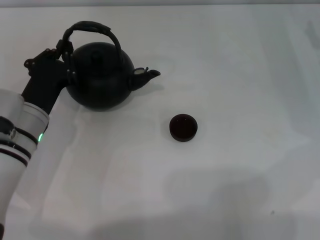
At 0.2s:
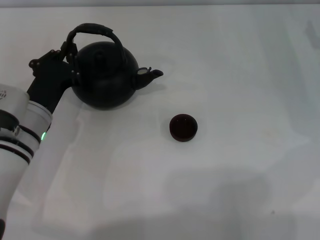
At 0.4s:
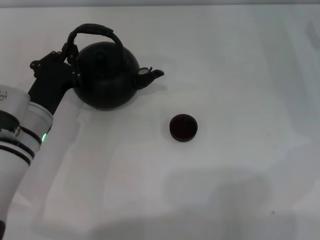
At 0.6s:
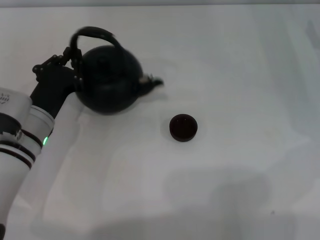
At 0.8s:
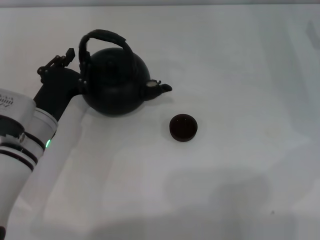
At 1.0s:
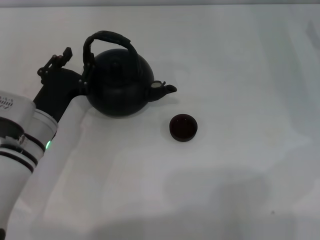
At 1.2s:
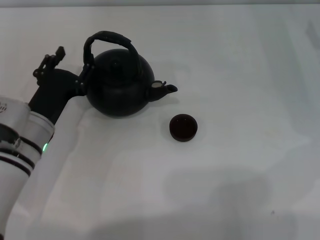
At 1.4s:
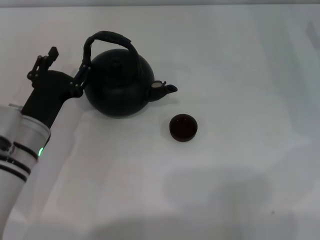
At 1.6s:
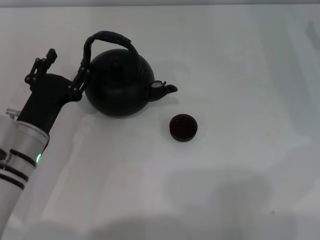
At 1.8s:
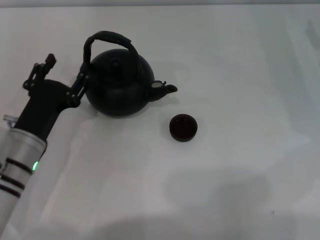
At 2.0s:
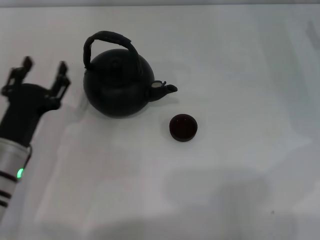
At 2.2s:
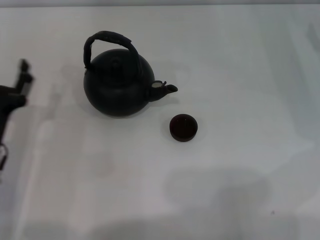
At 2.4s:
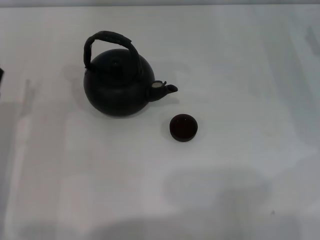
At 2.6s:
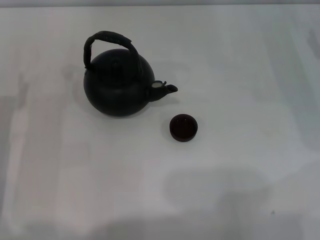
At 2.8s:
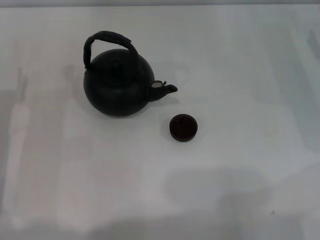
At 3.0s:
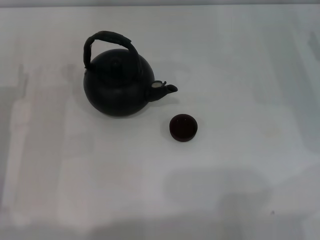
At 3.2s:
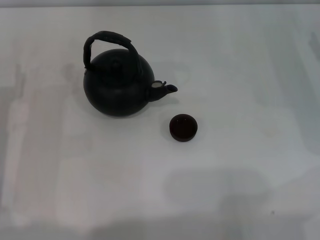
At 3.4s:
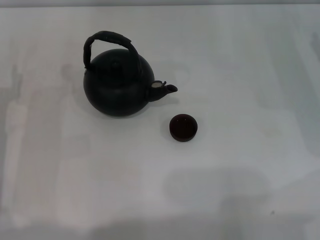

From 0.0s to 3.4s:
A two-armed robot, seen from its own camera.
Task of the whole recording: Grasp the handle of the teapot with one hand and pour tea into the teacup.
Step, from 0.0s to 1.8s: Put down the teapot with the left gripper.
From 0.0s to 1.6s: The left gripper opens.
From 1.6s to 3.4s: The left gripper shifts approximately 10 cm to the left.

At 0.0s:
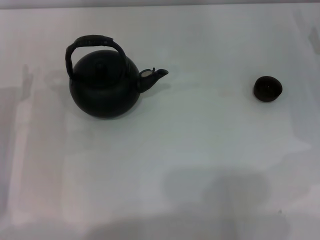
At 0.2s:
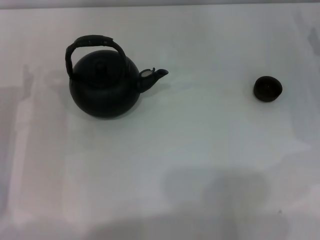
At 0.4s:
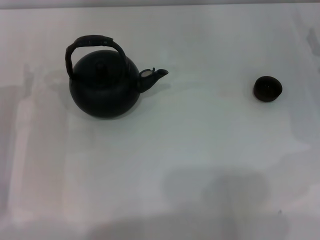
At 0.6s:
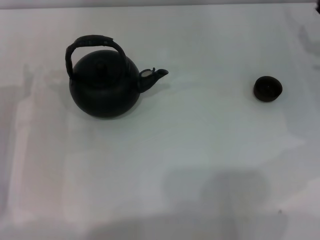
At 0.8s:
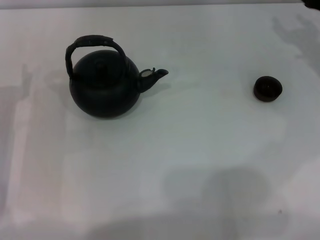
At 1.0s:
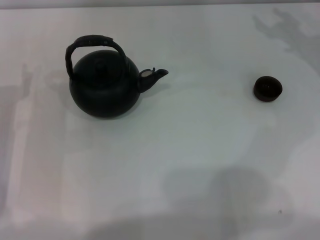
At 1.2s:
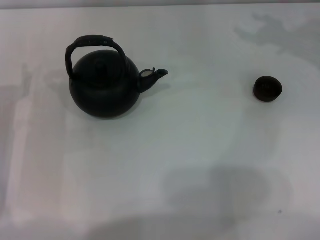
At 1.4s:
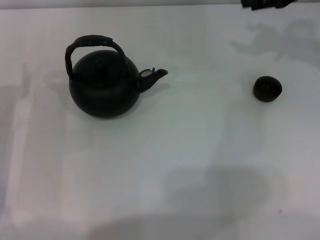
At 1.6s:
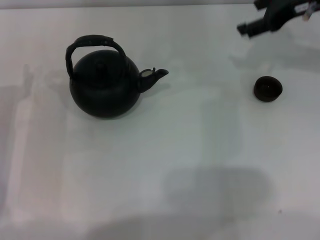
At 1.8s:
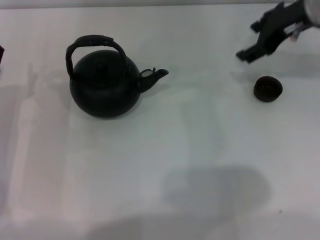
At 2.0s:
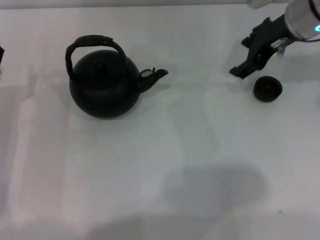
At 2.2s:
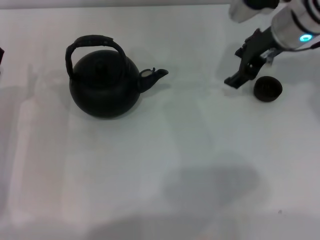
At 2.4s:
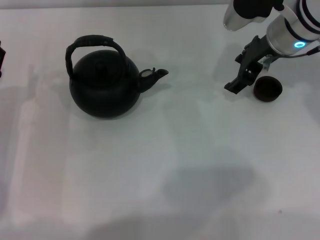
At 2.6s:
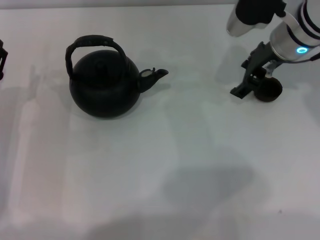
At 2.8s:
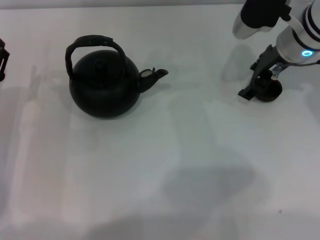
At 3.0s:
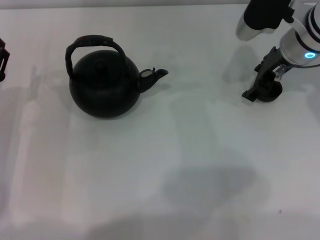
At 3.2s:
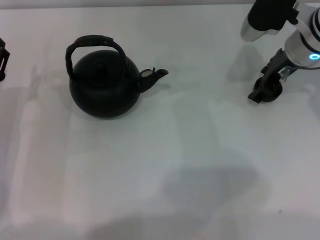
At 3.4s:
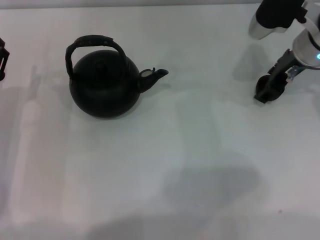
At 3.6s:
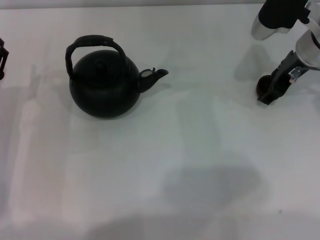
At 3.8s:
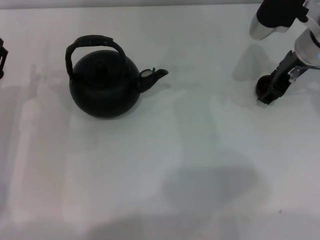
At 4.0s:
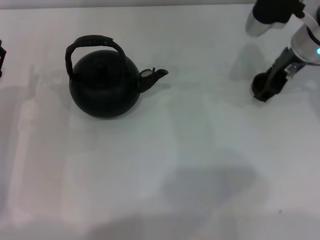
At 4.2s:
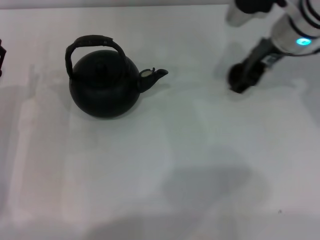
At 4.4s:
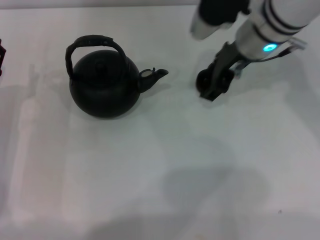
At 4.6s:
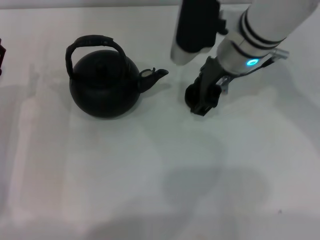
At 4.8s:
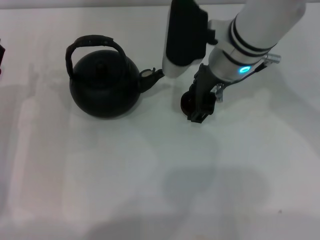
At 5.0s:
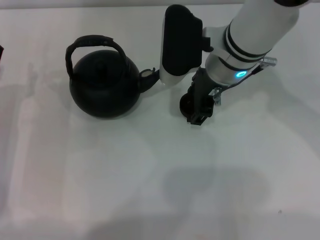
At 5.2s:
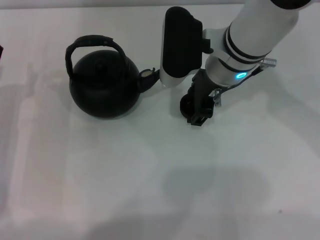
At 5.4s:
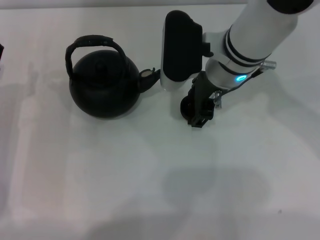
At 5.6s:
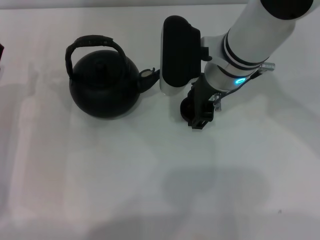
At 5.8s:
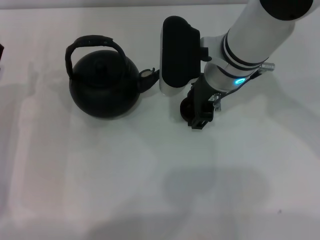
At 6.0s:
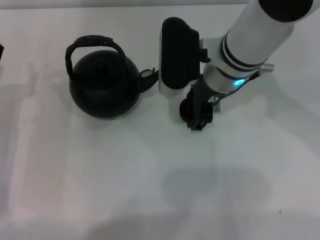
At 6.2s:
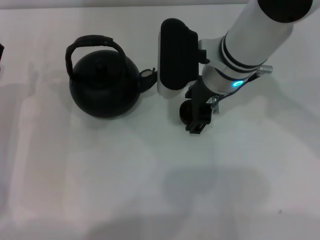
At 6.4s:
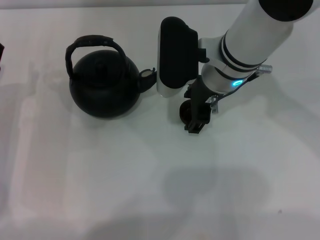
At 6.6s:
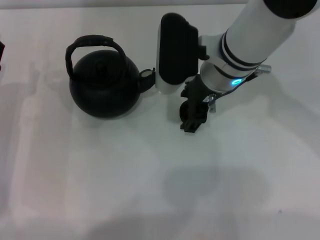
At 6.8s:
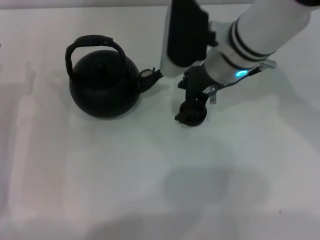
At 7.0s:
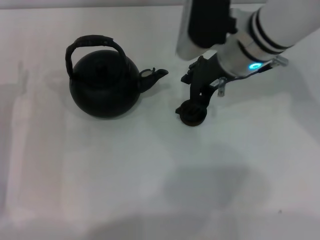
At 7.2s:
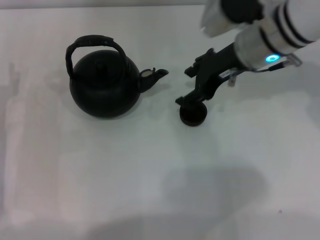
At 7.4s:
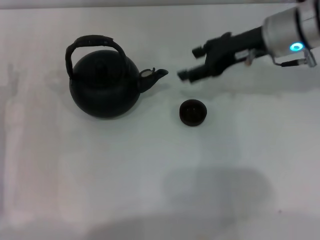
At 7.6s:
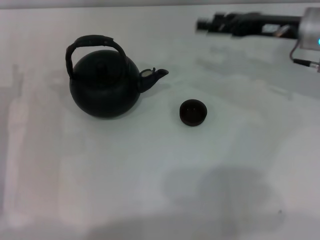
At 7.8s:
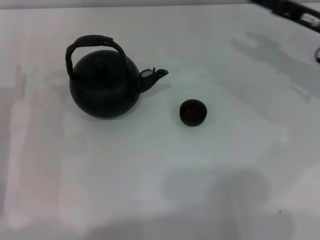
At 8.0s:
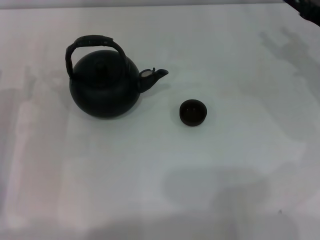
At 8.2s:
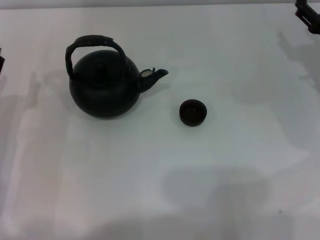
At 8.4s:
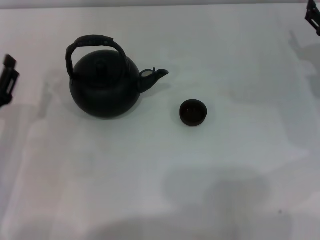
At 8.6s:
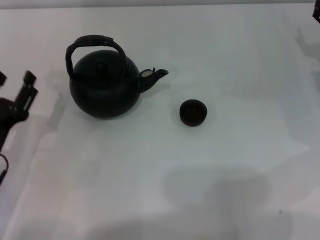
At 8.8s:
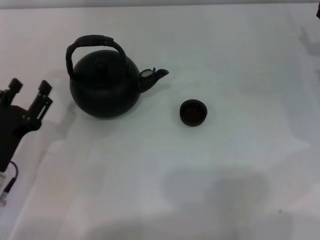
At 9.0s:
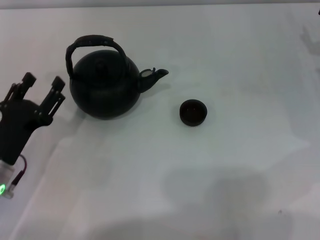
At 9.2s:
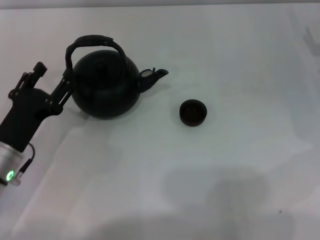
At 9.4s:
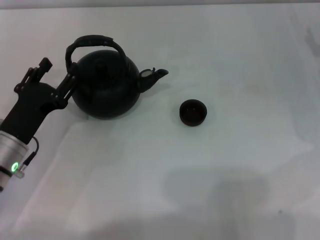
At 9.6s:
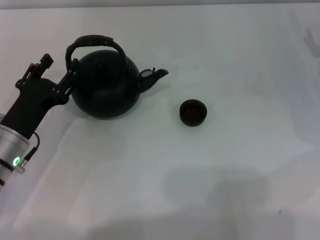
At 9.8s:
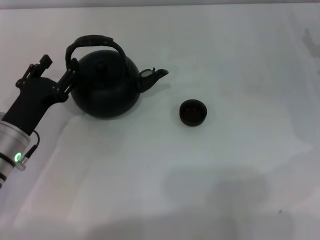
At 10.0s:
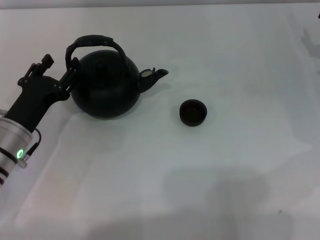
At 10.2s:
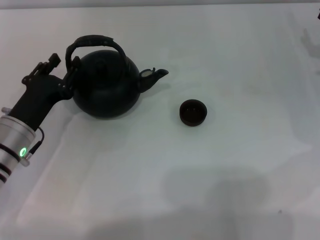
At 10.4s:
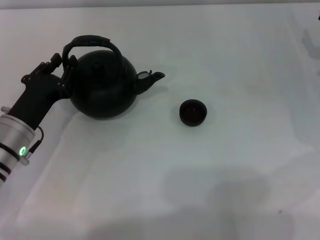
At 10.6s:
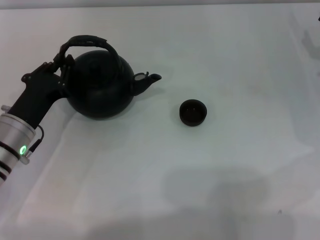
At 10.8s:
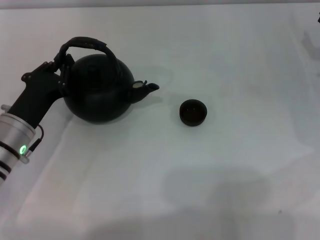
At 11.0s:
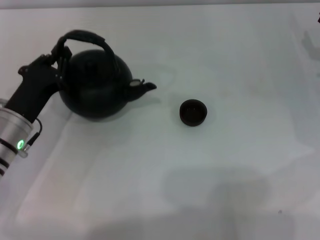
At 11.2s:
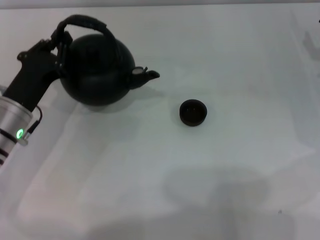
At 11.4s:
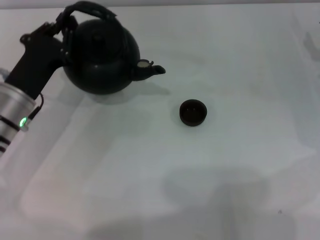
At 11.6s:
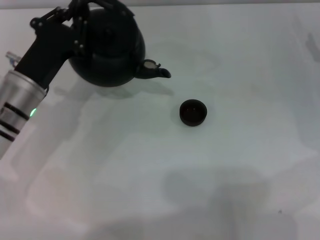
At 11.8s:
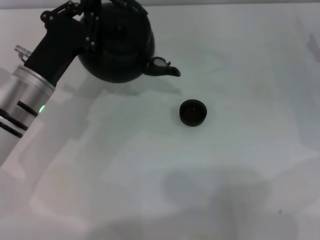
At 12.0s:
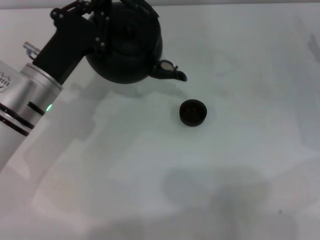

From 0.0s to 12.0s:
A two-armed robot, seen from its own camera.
Task of the whole recording: Grasp the handle of the teapot with one hand and pour tea into the teacup.
Step, from 0.0s to 4.2s: Pick up the teacup with the right gripper.
Step, from 4.6s to 6.8s: Place the teacup in the center of view with the right gripper.
Step, from 7.2s to 11.4s: Pick up the teapot with the left gripper.
From 0.0s to 1.6s: The right gripper goes some 15 cm upward and to the left.
From 1.6s to 3.0s: The right gripper is displaced downward by about 5 cm.
From 3.0s to 4.4s: The right gripper goes approximately 5 cm to the left.
From 4.4s to 6.0s: The right gripper changes place by approximately 5 cm.
From 6.0s to 7.6s: The right gripper is displaced to the right by roughly 15 cm.
From 7.6s to 9.0s: The right gripper travels to the right and downward by some 10 cm; the left gripper heads backward, covering roughly 5 cm.
From 9.0s to 10.4s: The left gripper moves forward, approximately 5 cm.
From 10.4s to 12.0s: The left gripper is displaced upward by some 5 cm, and closes up.

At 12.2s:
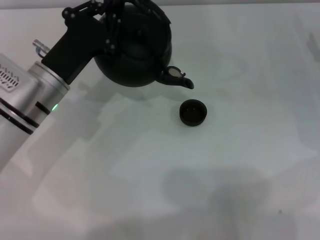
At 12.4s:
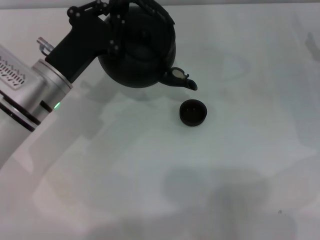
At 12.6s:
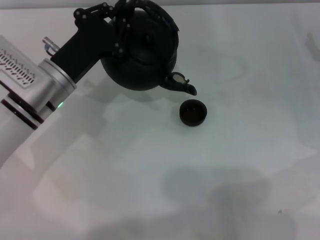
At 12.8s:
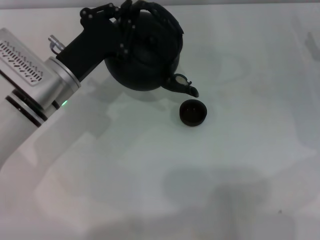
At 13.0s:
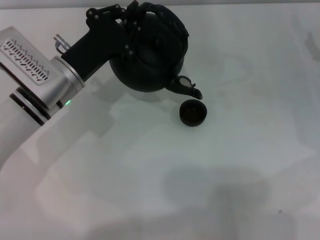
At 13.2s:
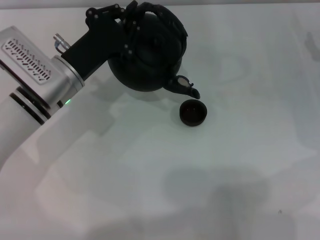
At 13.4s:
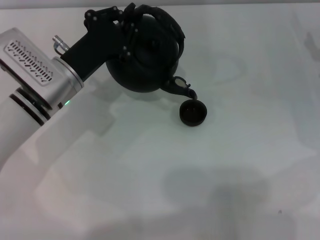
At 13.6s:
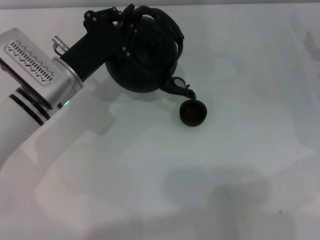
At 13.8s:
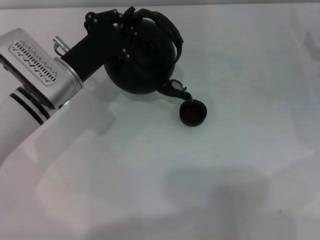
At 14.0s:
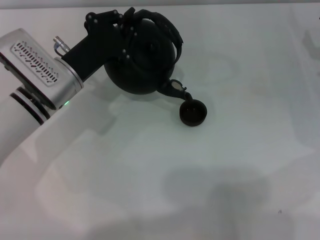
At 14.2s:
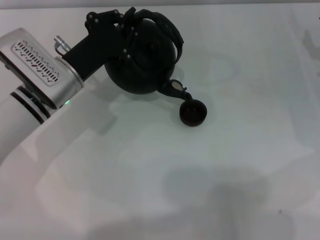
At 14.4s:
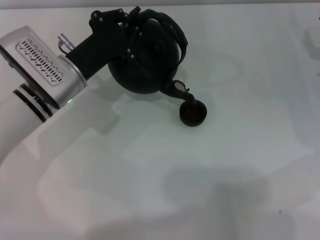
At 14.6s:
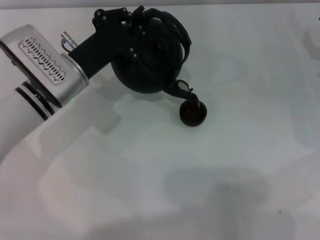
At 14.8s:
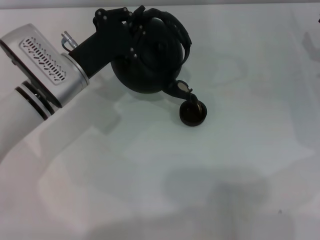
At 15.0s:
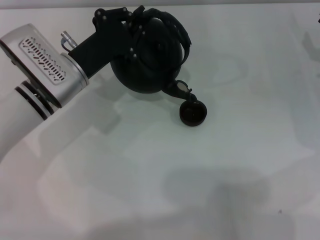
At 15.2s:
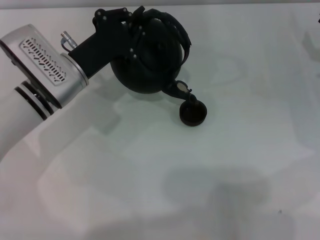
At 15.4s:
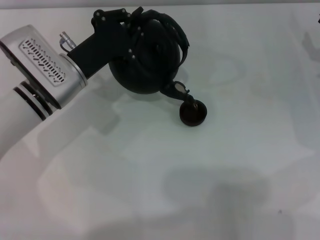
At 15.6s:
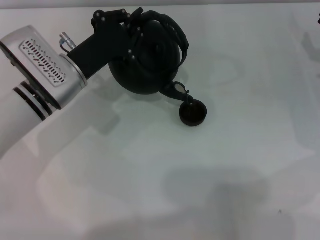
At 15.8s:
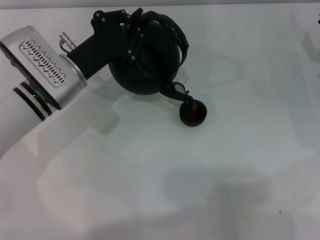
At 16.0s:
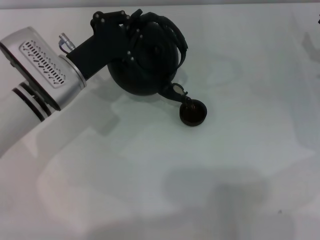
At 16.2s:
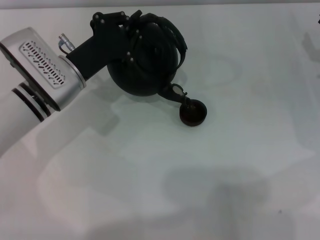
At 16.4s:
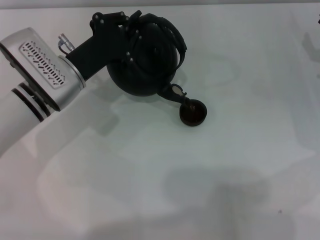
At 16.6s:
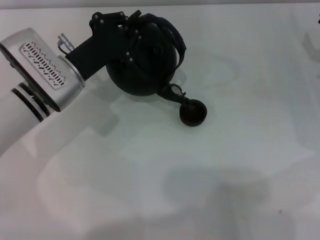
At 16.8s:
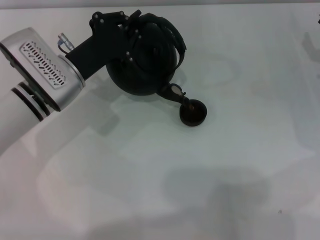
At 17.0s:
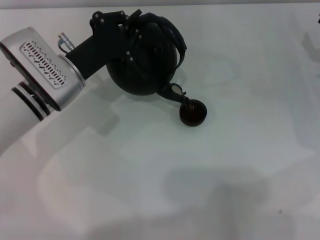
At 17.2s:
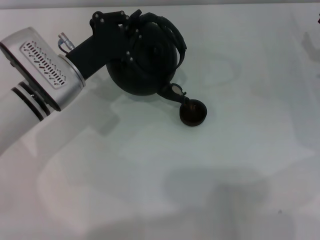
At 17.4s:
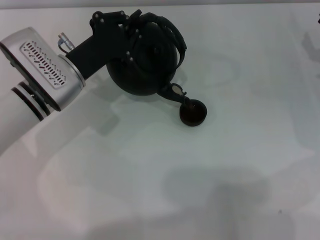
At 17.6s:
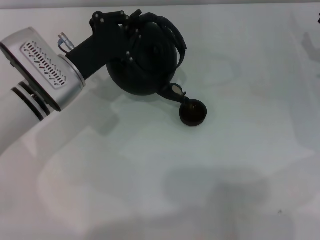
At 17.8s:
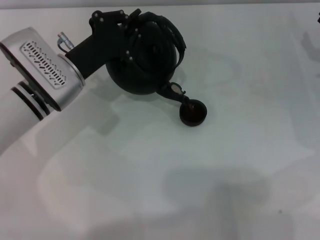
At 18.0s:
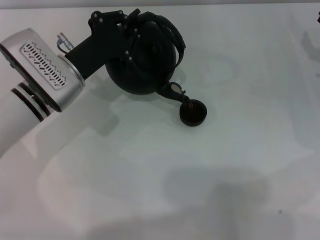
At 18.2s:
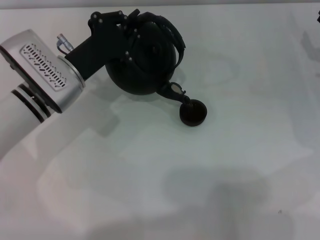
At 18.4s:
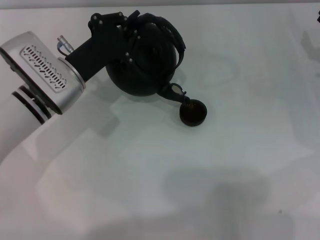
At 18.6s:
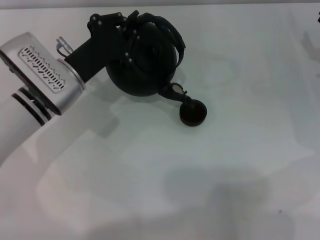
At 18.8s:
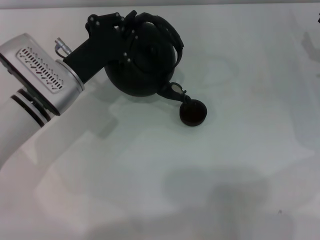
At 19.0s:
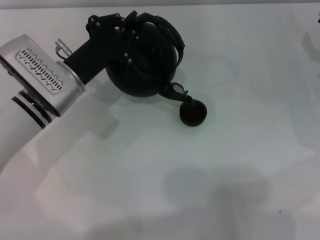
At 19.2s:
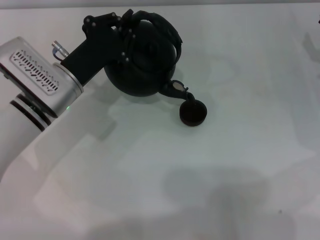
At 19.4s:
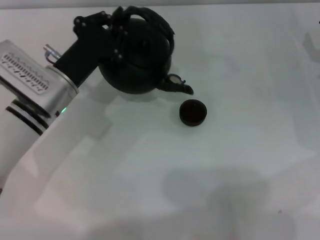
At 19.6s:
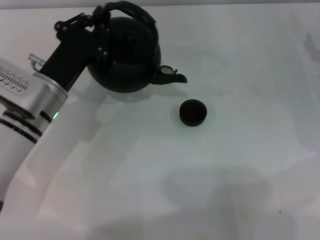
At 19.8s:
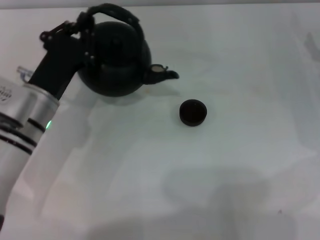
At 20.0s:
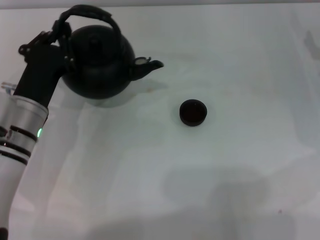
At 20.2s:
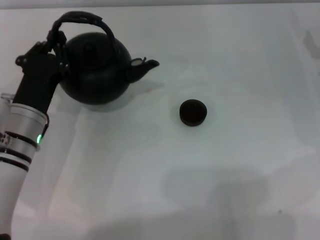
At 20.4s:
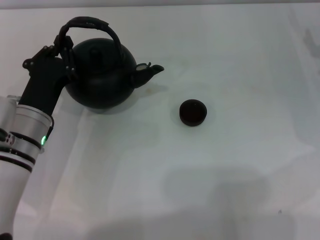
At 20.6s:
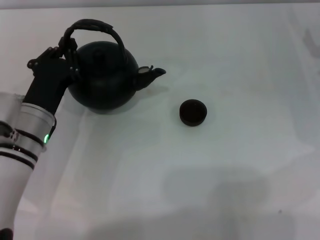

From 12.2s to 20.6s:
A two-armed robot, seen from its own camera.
Task of the whole recording: Grasp the handle of the teapot with one hand and pour tea into the teacup.
Step, from 12.2s to 19.8s: Pour tea into the teacup with the left gripper.
From 12.2s to 15.0s: There are only small adjustments of the grippers.
From 15.0s to 17.8s: Neither gripper changes place.
From 17.8s to 19.2s: The grippers stay close to where they were, moving slightly.
From 19.2s to 20.6s: The left gripper moves backward, about 5 cm.
